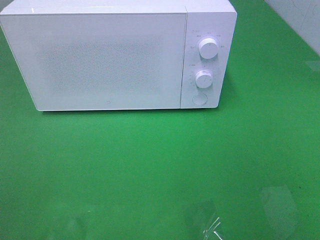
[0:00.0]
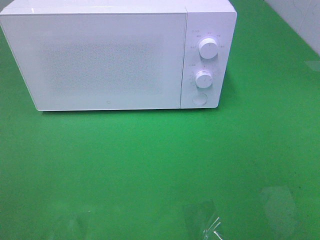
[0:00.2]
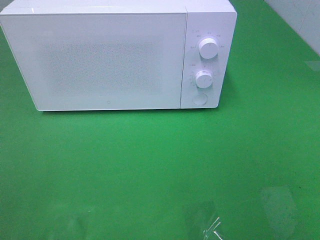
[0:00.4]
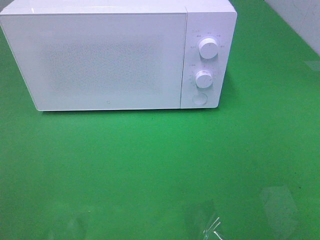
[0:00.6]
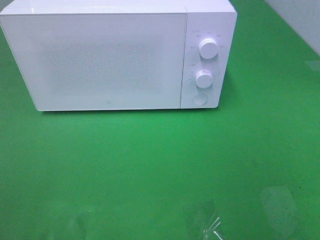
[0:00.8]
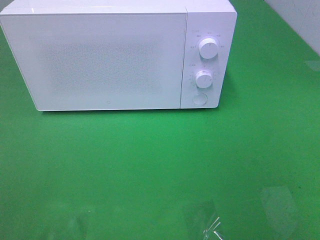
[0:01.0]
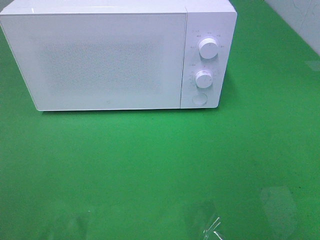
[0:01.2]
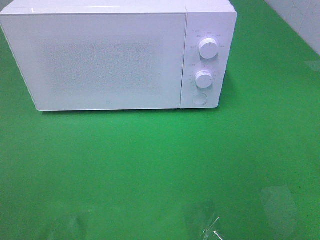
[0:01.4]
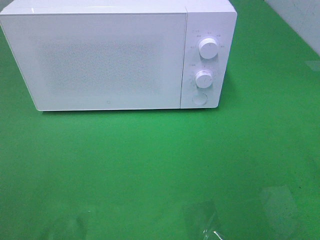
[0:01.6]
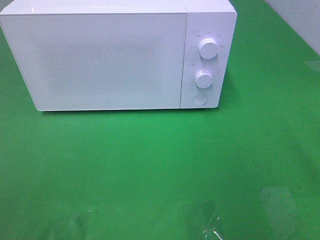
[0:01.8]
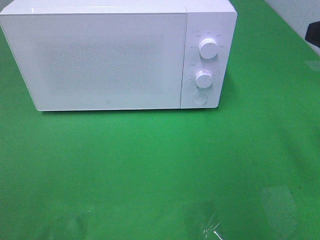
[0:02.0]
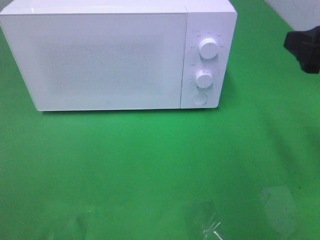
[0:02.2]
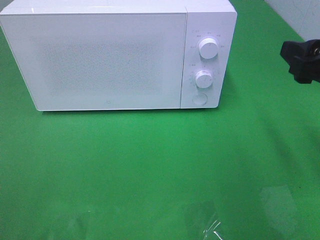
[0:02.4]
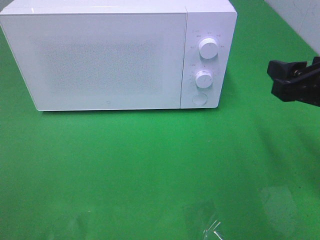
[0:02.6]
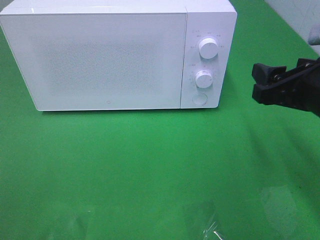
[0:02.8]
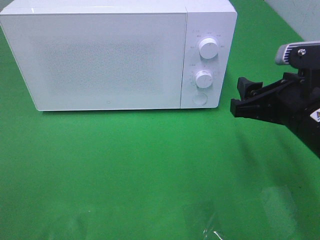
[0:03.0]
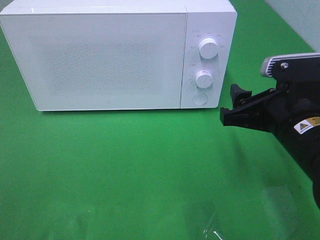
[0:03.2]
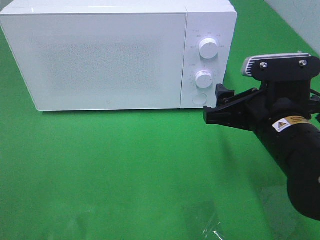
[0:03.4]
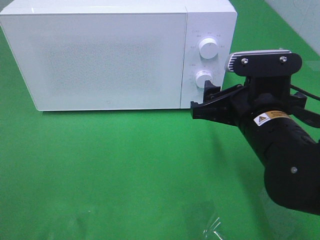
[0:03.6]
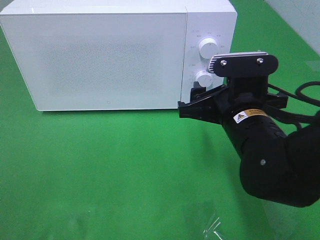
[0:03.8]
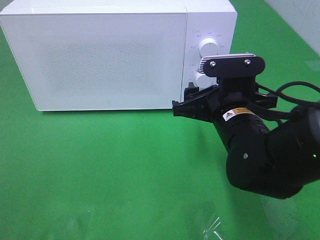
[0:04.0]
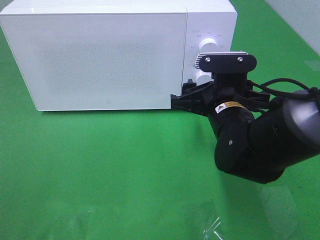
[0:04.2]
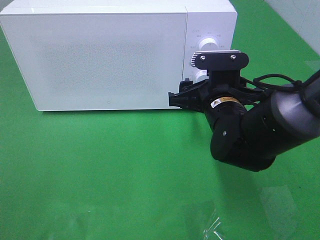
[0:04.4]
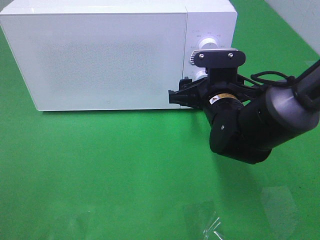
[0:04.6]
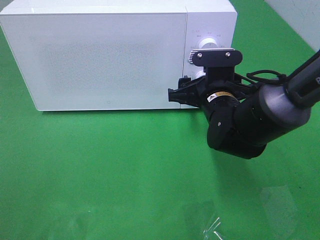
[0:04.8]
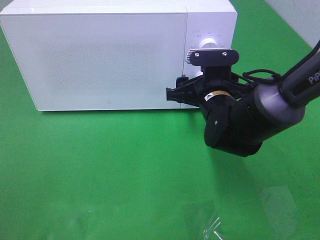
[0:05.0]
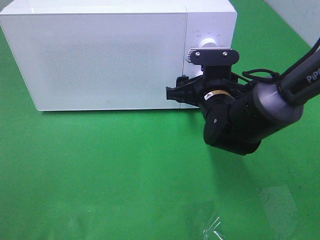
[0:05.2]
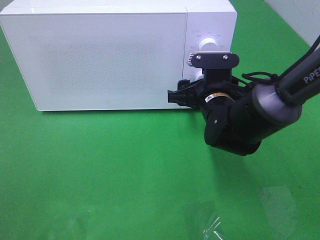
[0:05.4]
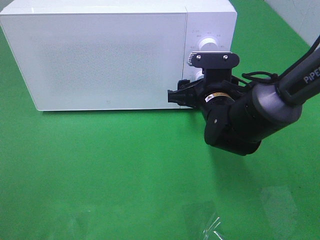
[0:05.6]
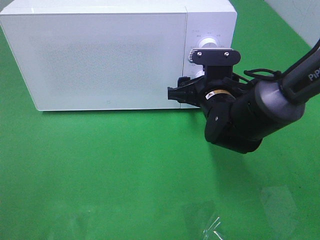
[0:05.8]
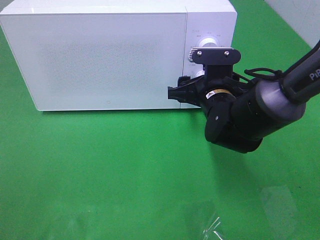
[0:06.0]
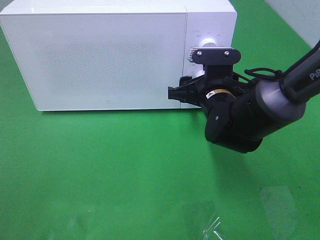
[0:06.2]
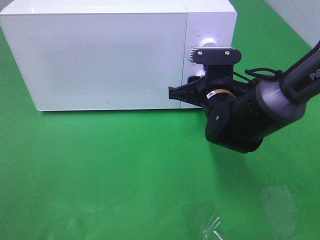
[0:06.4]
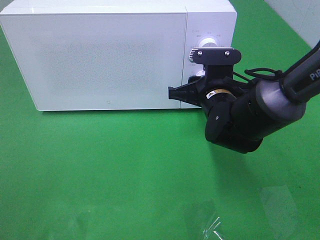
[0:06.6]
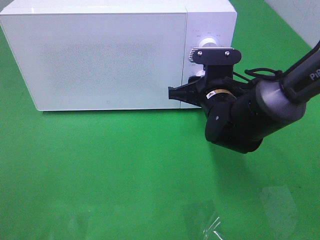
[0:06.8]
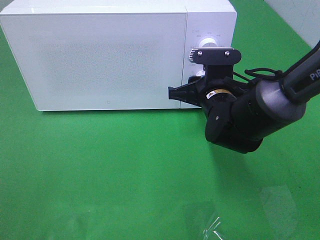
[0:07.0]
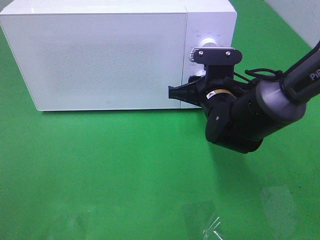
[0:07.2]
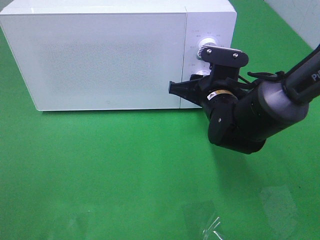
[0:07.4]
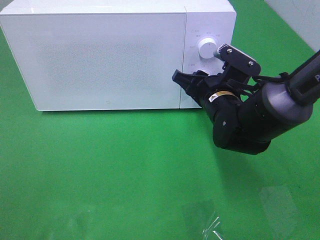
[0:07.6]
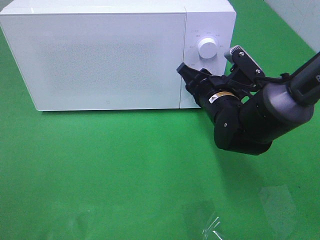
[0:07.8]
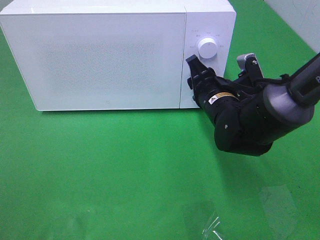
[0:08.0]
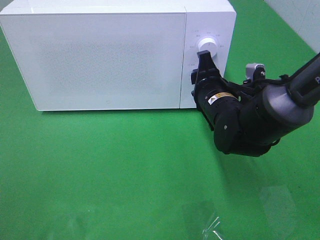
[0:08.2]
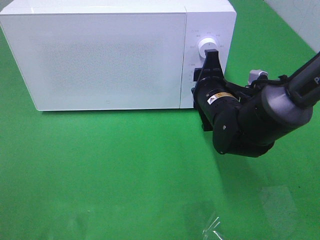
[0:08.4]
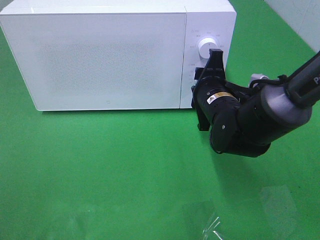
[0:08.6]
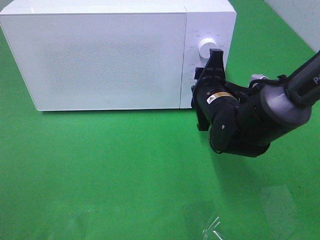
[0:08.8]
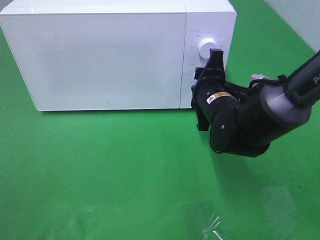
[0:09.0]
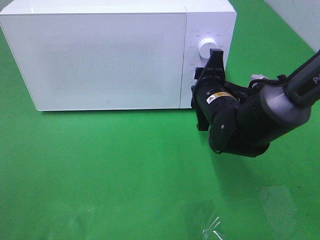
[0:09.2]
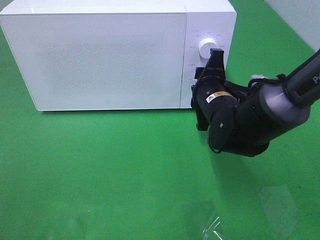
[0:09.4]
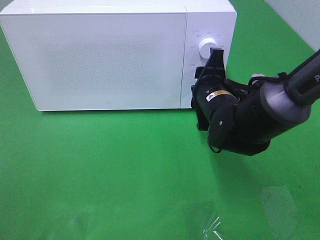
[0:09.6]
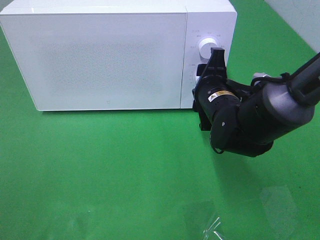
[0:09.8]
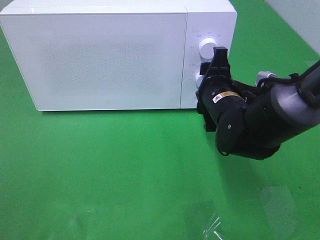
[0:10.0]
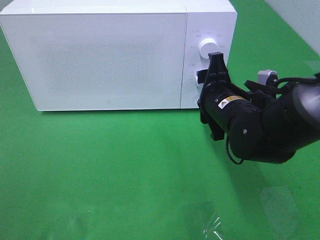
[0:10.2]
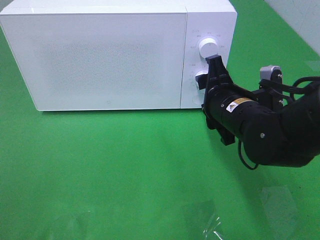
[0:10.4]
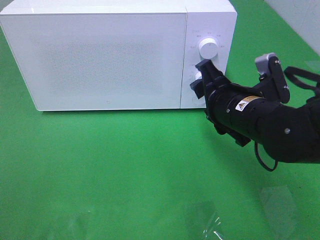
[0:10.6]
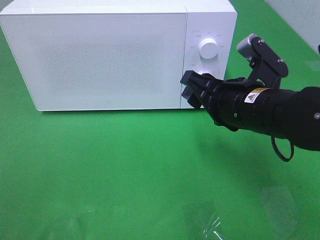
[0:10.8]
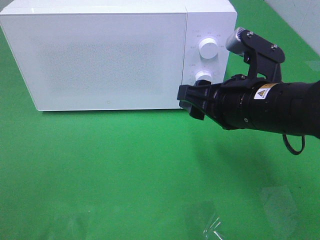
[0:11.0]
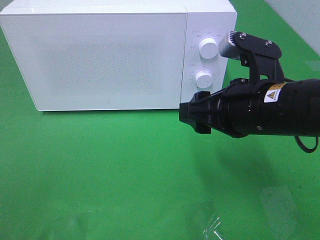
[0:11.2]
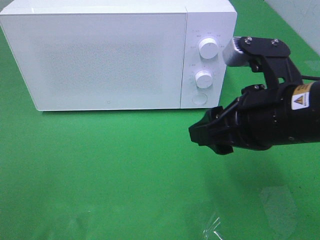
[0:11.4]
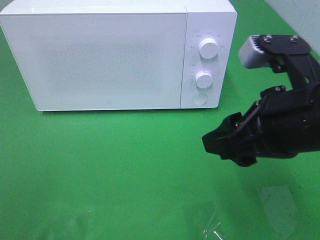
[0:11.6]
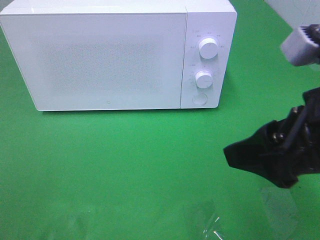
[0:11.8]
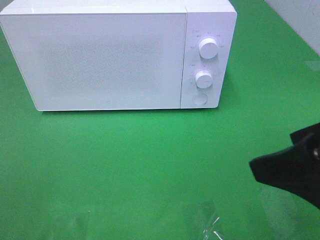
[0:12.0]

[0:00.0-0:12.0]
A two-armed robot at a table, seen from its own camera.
Task of the whole recording: Heat the burger.
Step, 0:00.0 to 0:10.2: Right hand: twist timer button.
0:01.6 to 0:03.0: The right gripper shifts approximately 15 cm downward, to the left and forward.
0:03.0 to 0:04.4: The right gripper is displaced forward, to the left and downward by some 15 cm.
0:04.4 to 0:06.0: The grippers stay close to where they were, moving slightly.
0:06.0 to 0:07.6: The right gripper closes its fingers.
0:09.0 to 0:10.4: The right gripper is displaced backward by some 5 cm.
0:10.4 to 0:12.0: The right gripper moves backward, upward and to the right, approximately 25 cm.

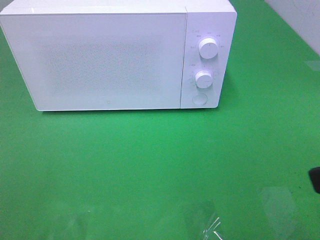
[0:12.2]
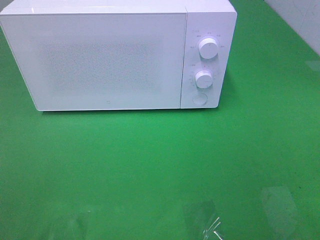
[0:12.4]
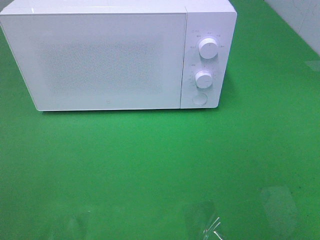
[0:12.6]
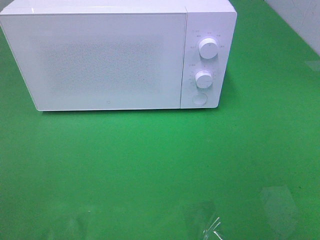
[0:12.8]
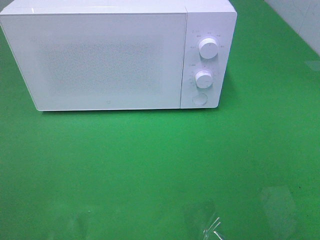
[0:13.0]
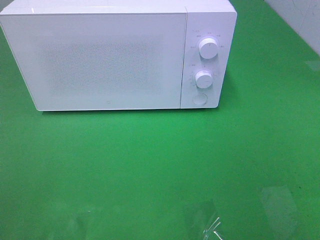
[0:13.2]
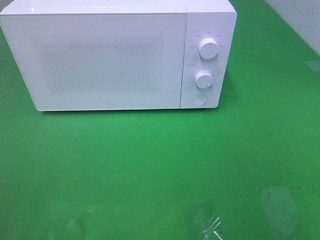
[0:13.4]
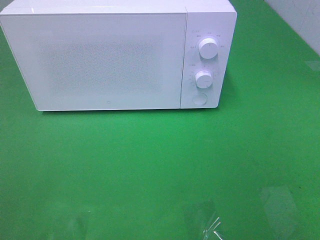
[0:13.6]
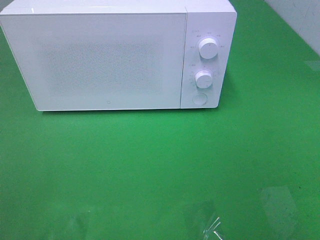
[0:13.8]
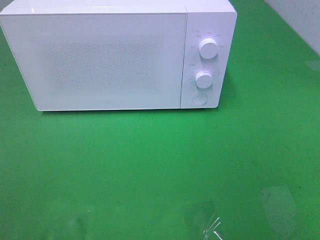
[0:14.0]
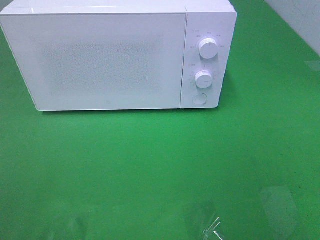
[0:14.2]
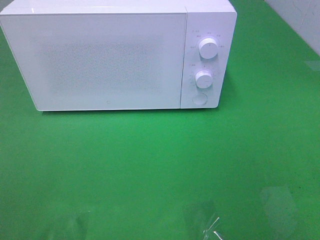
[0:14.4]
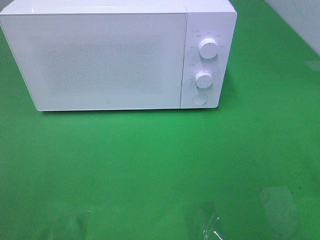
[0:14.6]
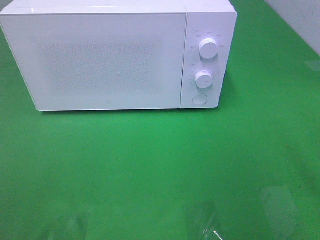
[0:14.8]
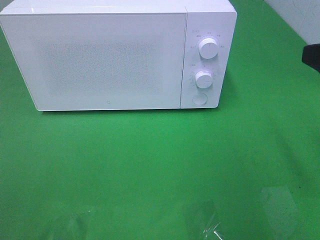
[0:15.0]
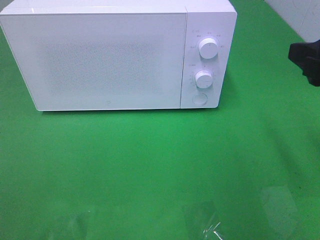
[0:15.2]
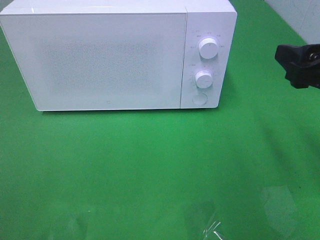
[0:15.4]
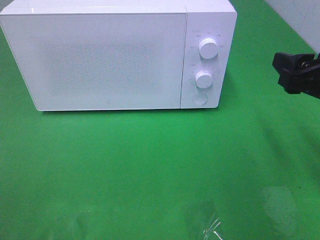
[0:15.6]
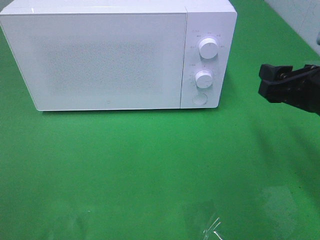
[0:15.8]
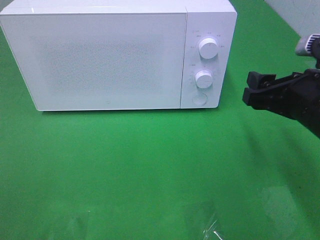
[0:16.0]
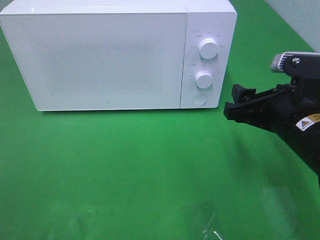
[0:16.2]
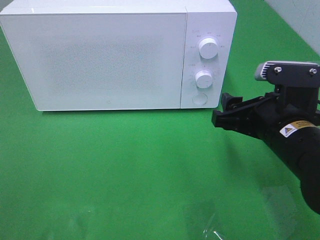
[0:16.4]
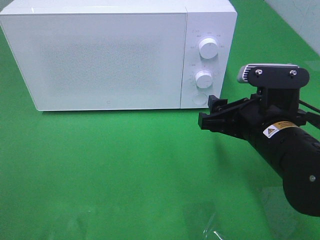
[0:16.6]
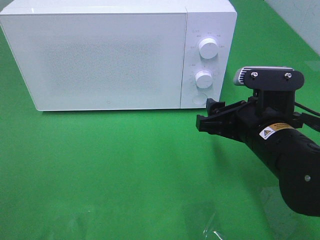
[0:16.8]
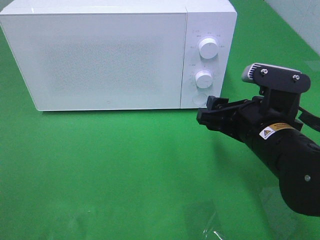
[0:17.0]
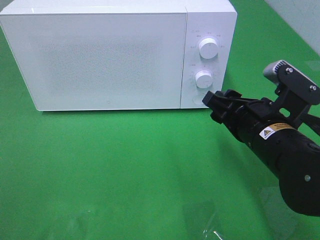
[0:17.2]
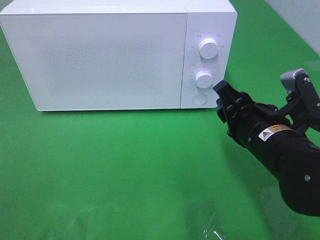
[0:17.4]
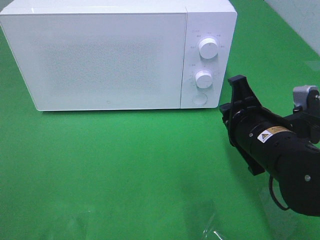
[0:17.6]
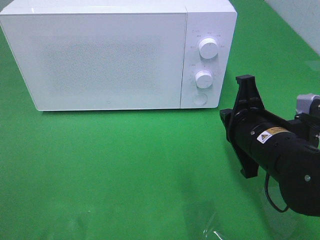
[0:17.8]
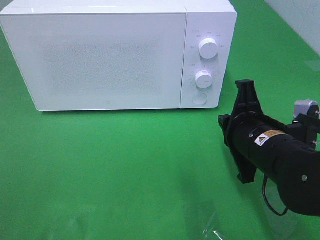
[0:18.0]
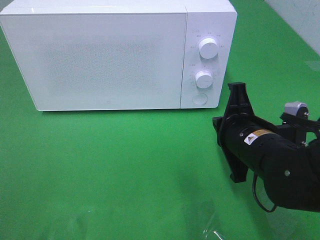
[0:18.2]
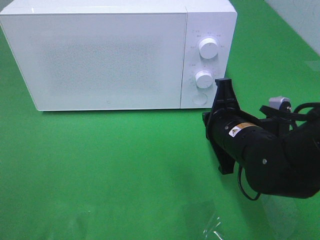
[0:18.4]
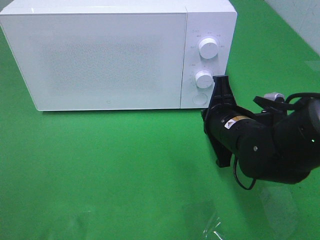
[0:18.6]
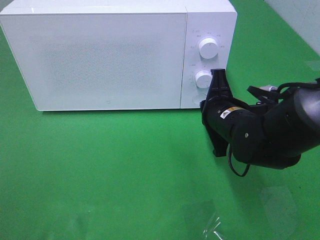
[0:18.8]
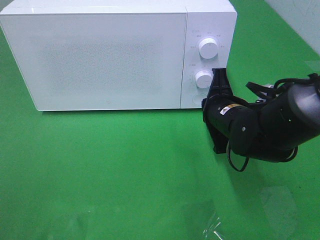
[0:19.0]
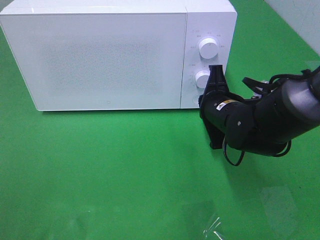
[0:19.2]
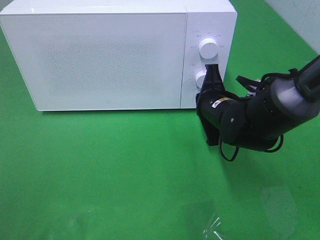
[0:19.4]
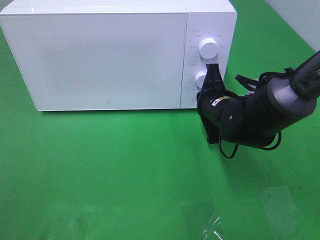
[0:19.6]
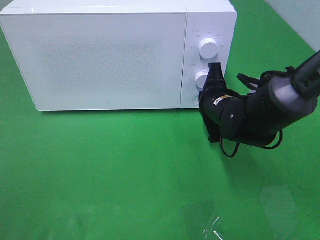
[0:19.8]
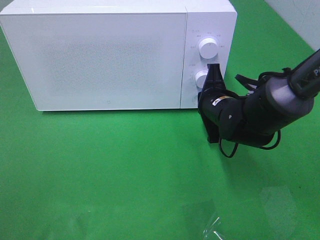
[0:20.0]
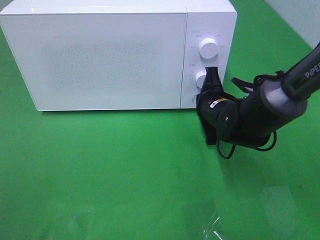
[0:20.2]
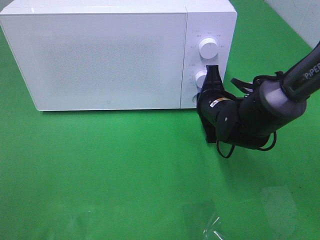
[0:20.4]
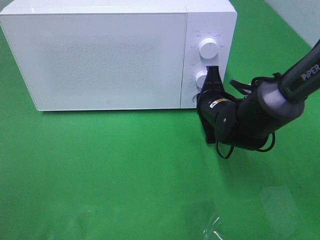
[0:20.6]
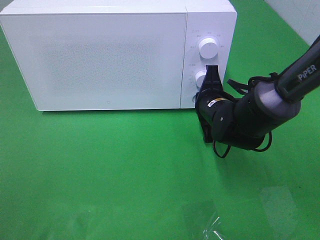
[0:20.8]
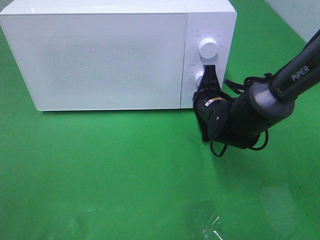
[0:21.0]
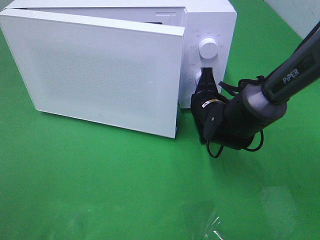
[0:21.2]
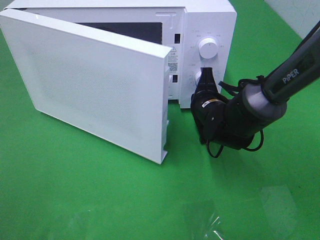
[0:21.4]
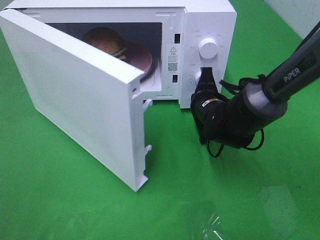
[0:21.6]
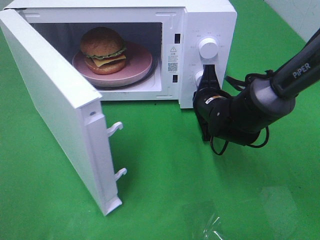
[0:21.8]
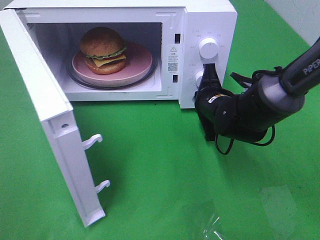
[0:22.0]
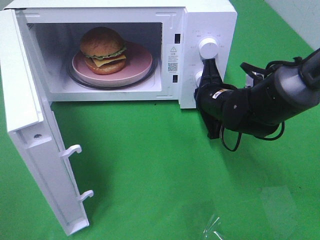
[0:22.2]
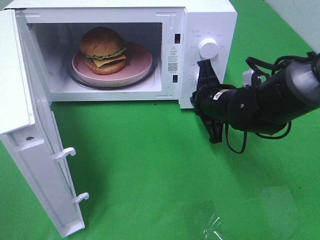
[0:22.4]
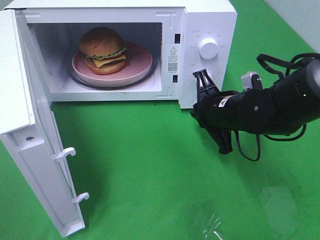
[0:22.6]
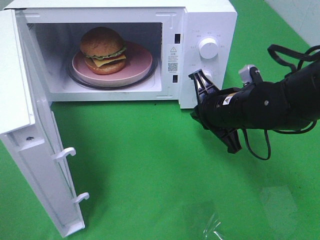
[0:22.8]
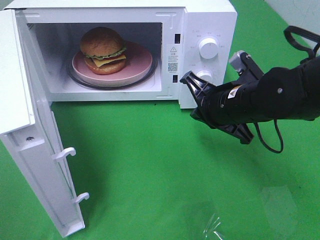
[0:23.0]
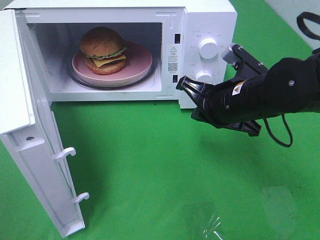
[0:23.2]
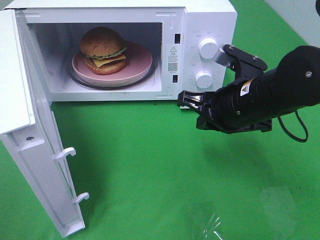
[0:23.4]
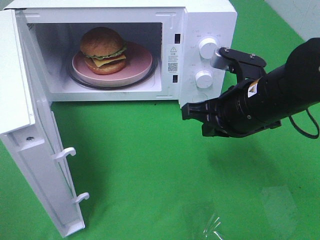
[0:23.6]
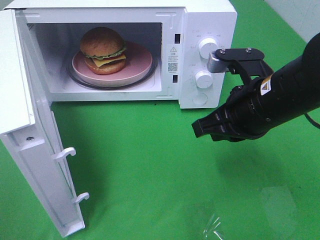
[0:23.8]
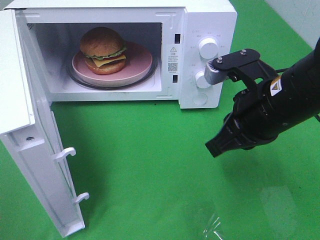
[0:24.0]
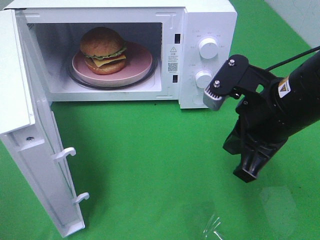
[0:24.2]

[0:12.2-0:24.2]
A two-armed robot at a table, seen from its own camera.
Task of the whole recording: Heat the burger.
Step, 0:12.2 to 0:22.8: Right hand: press the switch.
0:13.8 to 0:15.2: The right gripper shifts approximately 20 cm forward.
0:15.2 to 0:16.6: The right gripper moves downward and to the left, roughly 15 cm.
0:16.6 to 0:18.2: The right gripper closes its fingers.
0:18.2 to 0:19.8: The right gripper shifts about 10 cm forward.
0:19.8 to 0:21.2: The grippers stay close to where they were, moving slightly.
0:21.2 to 0:22.6: The right gripper moves about 5 cm.
0:22.6 to 0:24.2: The right gripper shifts approximately 15 cm upward and backward.
